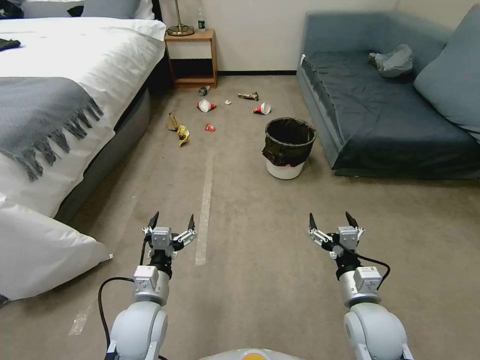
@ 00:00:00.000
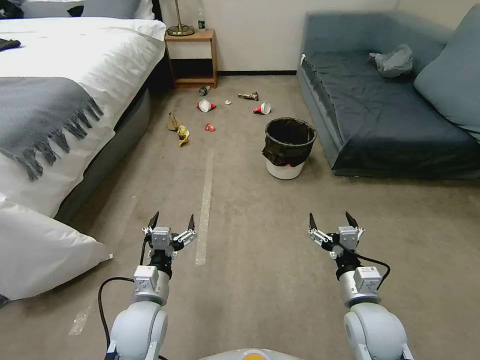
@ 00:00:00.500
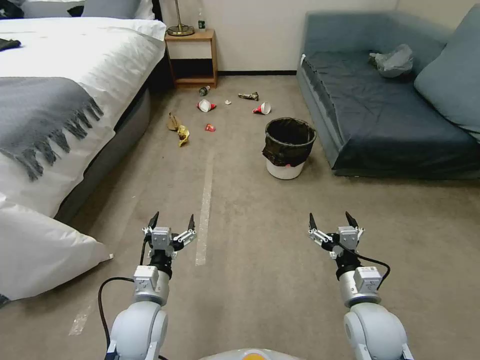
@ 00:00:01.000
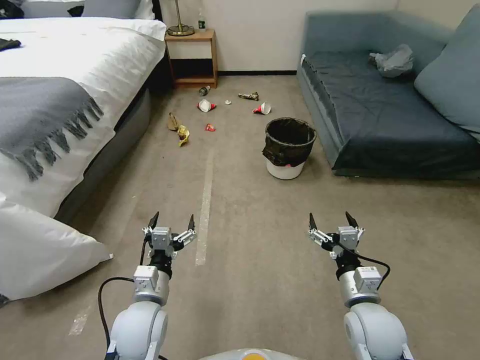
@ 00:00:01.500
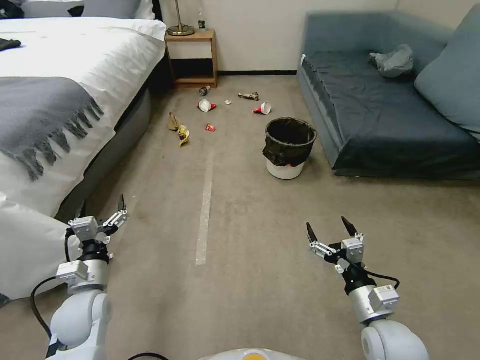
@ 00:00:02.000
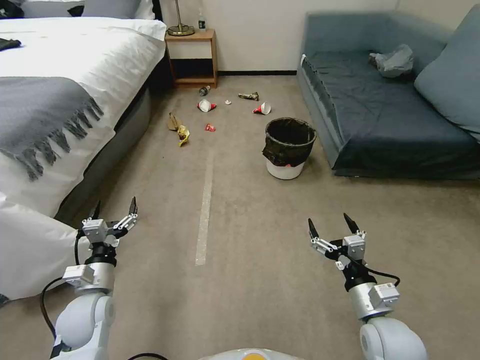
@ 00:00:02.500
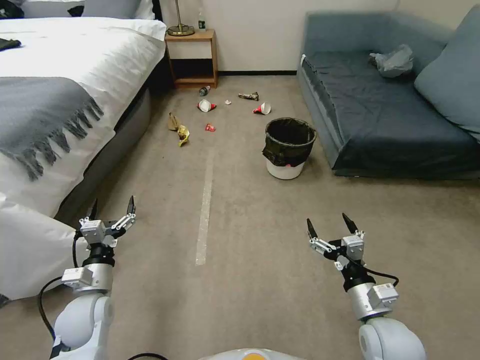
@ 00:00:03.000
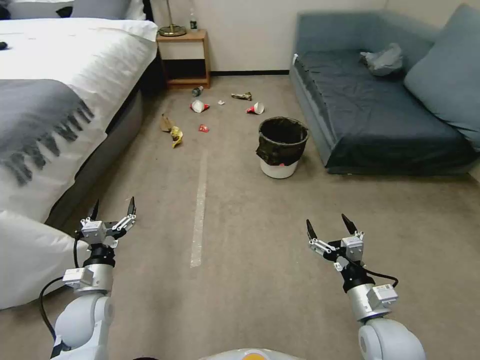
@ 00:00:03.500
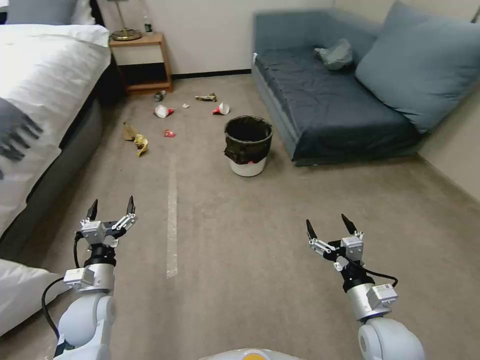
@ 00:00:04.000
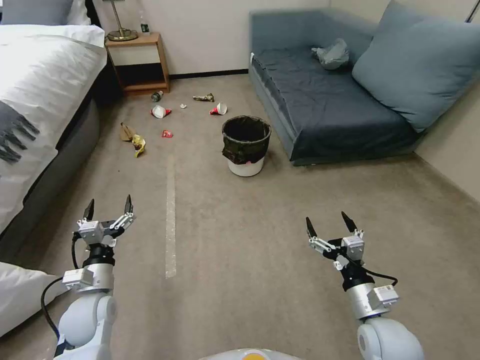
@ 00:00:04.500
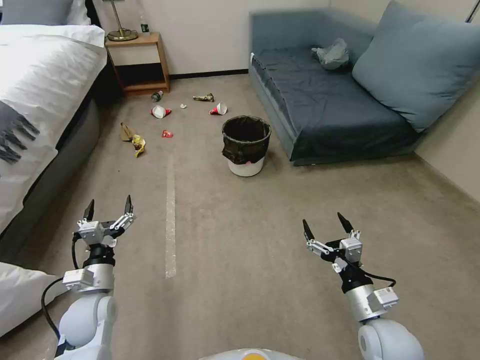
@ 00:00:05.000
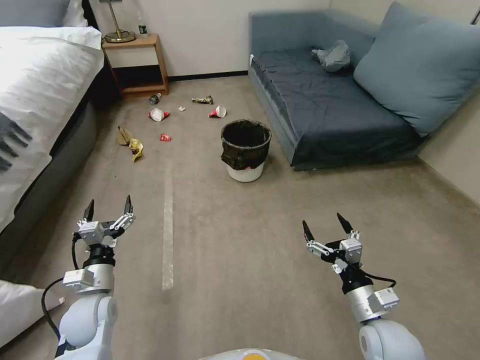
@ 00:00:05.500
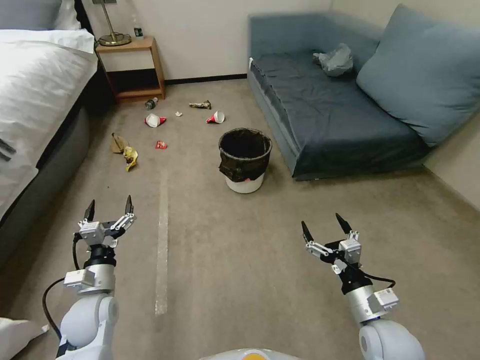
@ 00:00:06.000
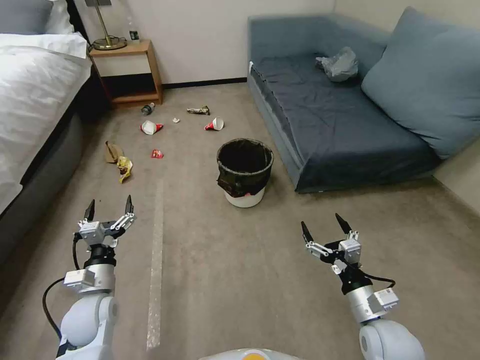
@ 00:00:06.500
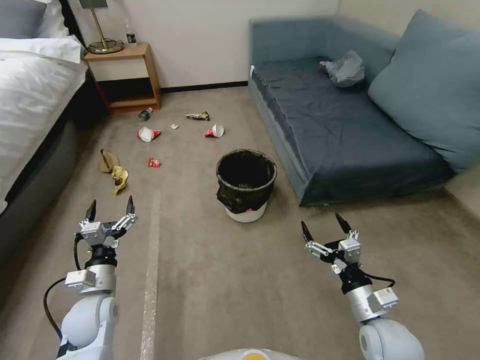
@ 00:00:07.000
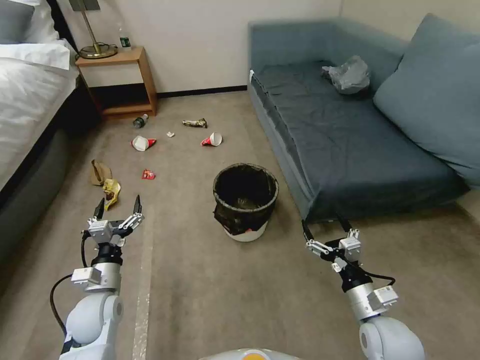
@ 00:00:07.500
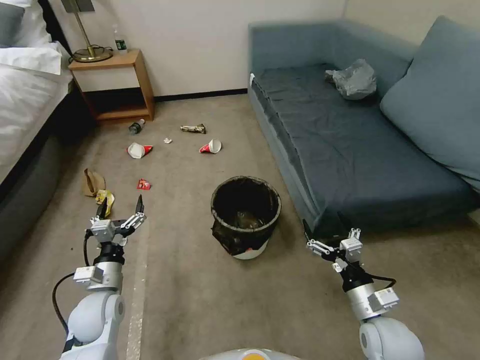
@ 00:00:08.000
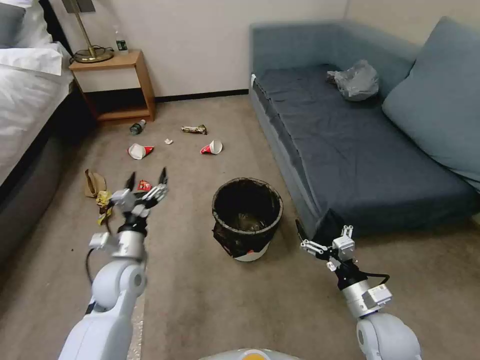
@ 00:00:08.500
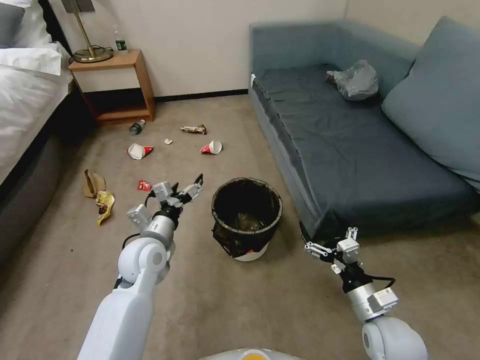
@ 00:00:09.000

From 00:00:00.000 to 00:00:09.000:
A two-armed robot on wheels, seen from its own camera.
Task of the whole recording: Pick up the trash can from the floor.
From 00:00:07.000 to 00:00:09.000: The left gripper heads to the right, forward and upward, covering roughly 15 cm.

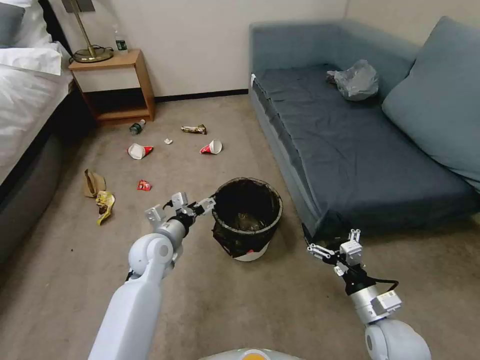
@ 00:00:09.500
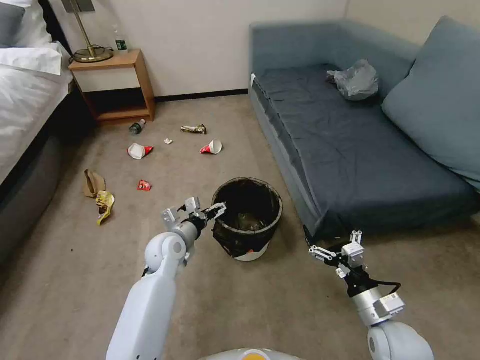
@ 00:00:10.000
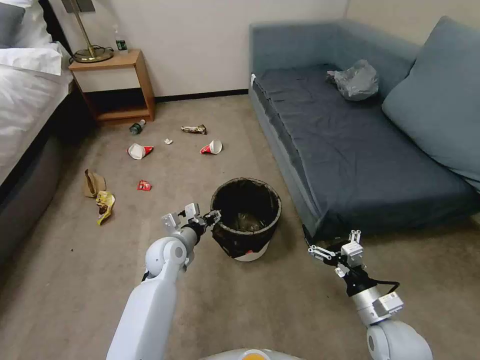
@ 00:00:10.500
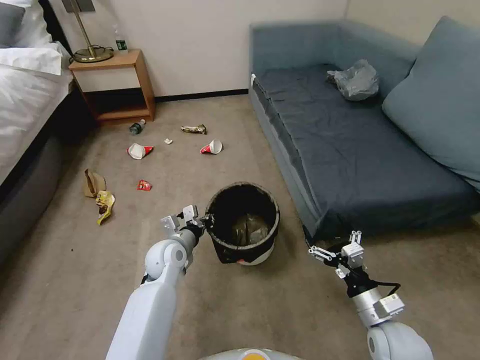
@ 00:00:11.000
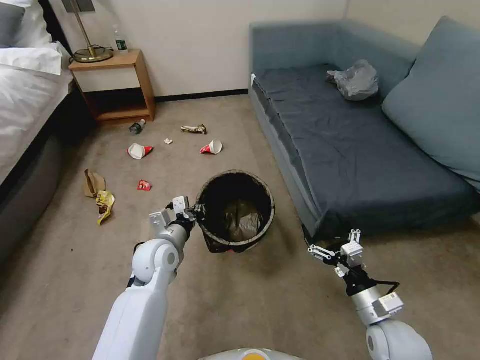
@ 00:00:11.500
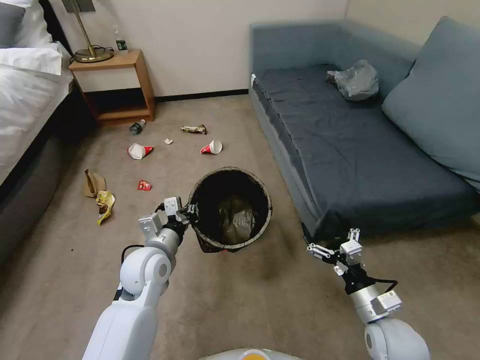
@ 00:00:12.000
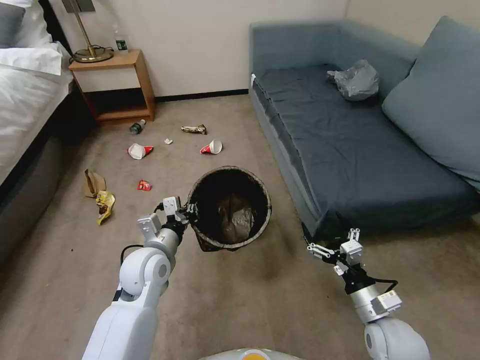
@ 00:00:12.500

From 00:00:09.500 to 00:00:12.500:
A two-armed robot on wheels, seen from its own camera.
Task of the whole recording: Pick up the trash can from the floor.
From 00:00:09.500 to 00:00:11.000: The left gripper closes up.
From 00:00:11.000 to 00:00:12.500: The left gripper is displaced upward and backward by approximately 10 cm.

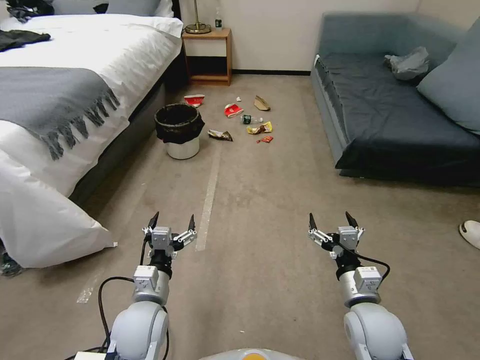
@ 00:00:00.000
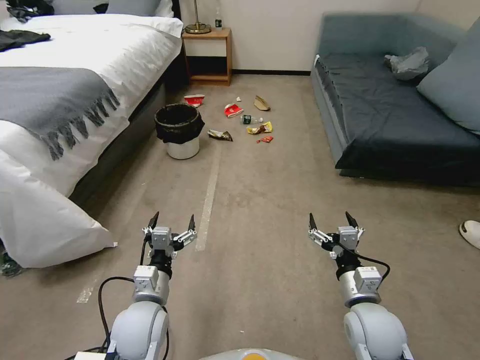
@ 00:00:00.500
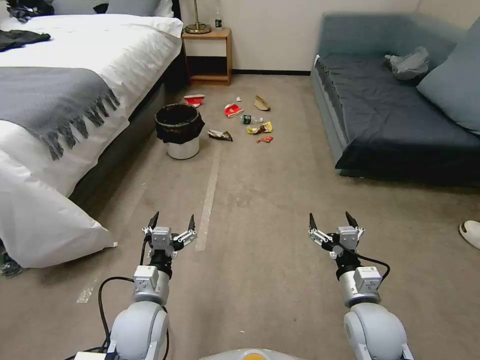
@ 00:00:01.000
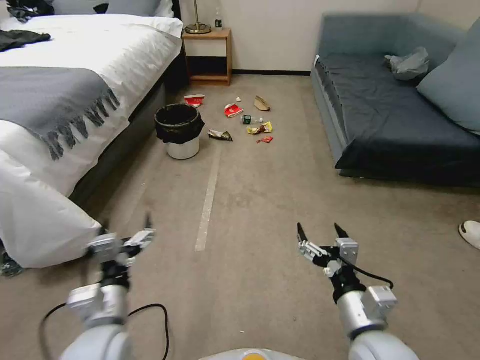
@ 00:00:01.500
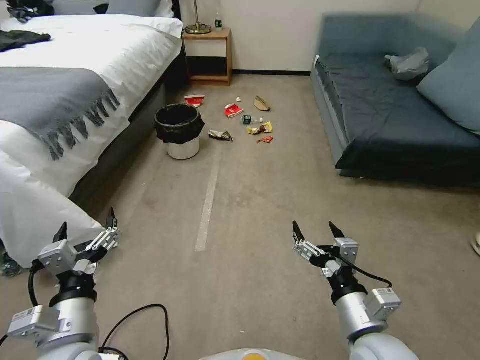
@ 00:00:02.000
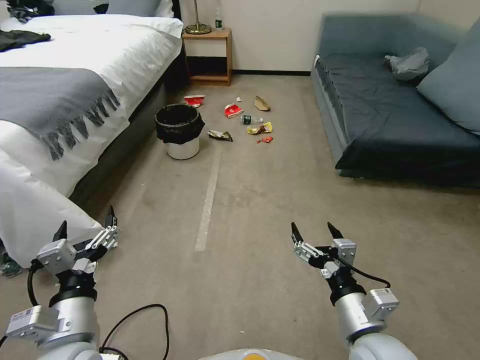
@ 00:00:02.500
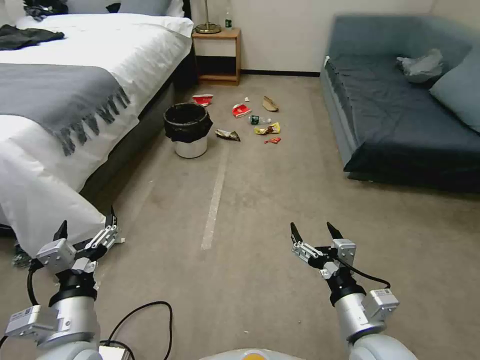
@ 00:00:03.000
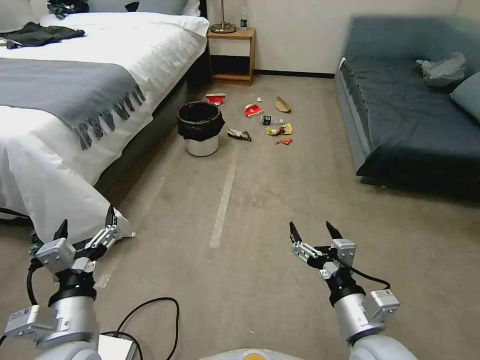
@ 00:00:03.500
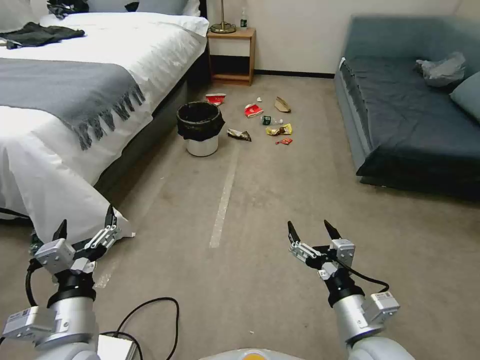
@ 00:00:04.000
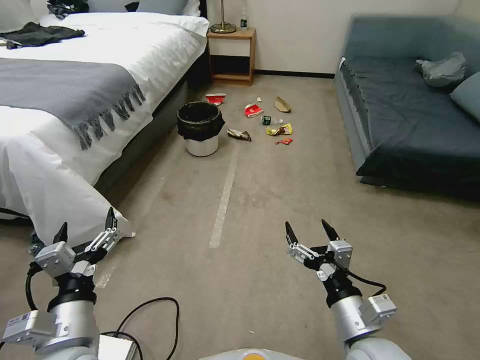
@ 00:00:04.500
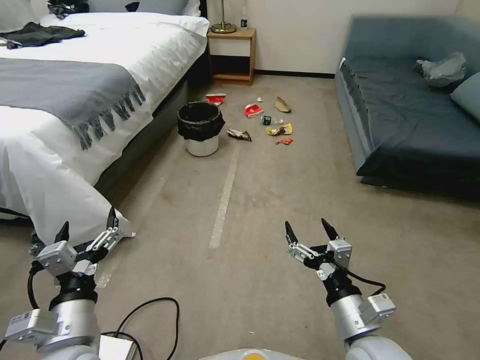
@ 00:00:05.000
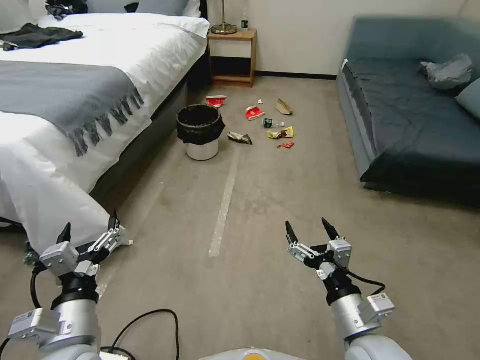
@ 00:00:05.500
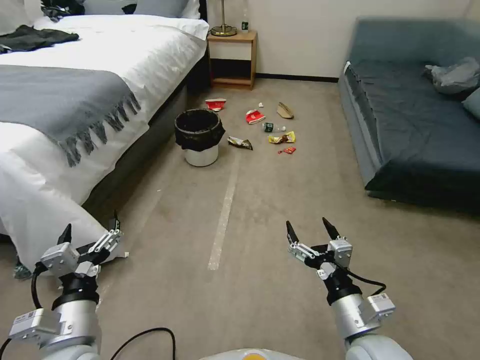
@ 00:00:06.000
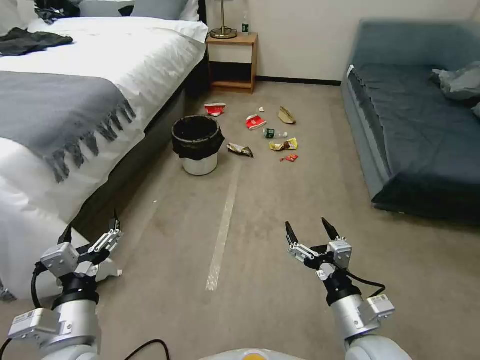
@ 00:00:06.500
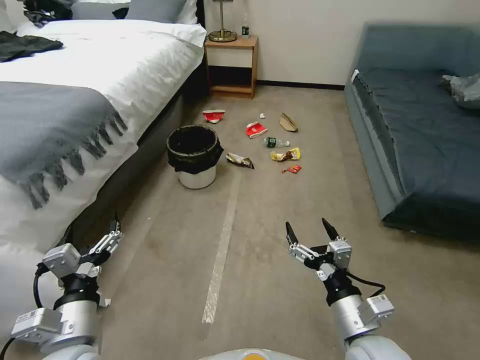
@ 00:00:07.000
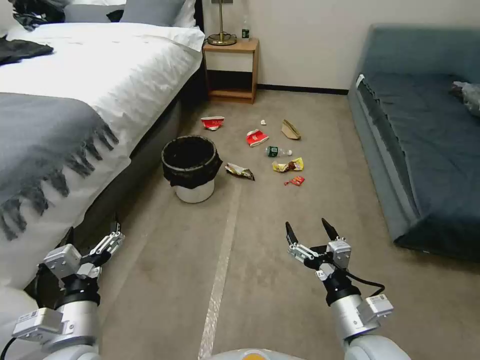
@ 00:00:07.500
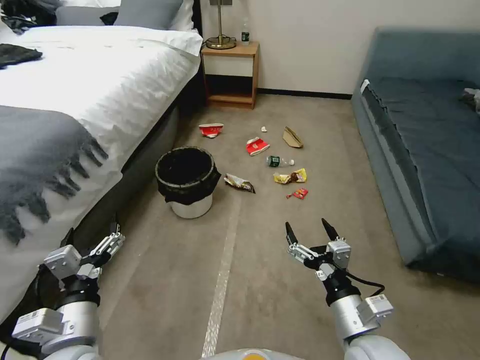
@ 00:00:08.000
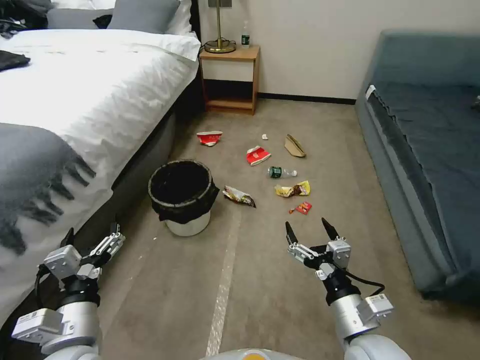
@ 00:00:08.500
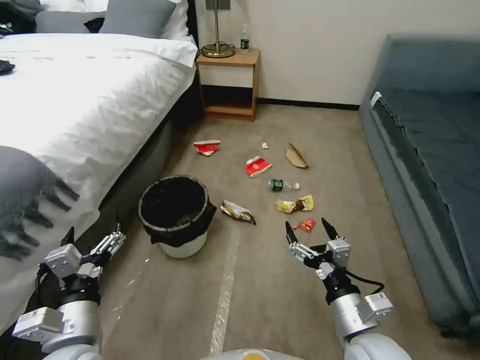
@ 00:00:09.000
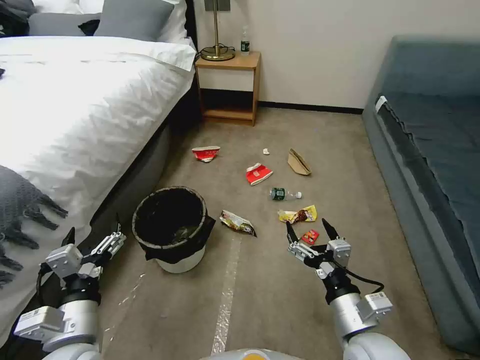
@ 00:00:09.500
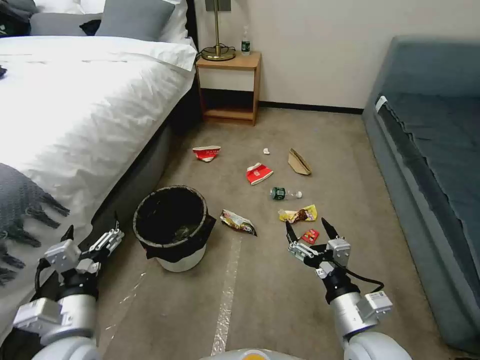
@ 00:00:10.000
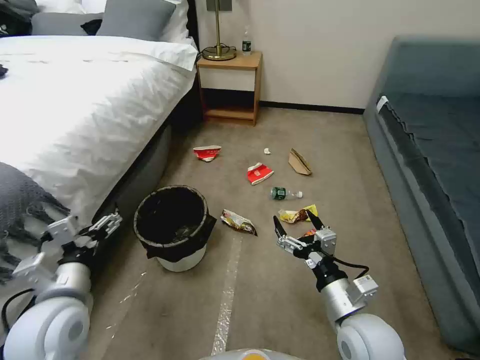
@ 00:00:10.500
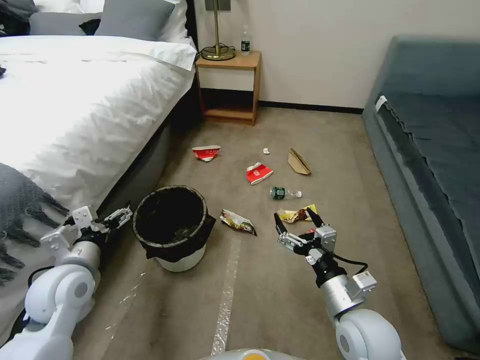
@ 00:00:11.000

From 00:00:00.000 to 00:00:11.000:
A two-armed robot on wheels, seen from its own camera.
Task of the whole recording: Pick up the trash can from the floor.
From 00:00:03.500 to 00:00:05.500: There are only small adjustments of the grippers.
From 00:00:09.000 to 00:00:11.000: The left gripper heads forward and to the left, covering about 15 cm.

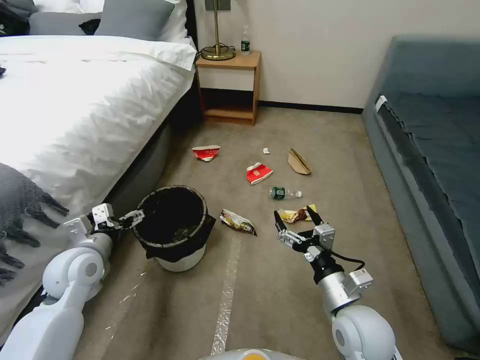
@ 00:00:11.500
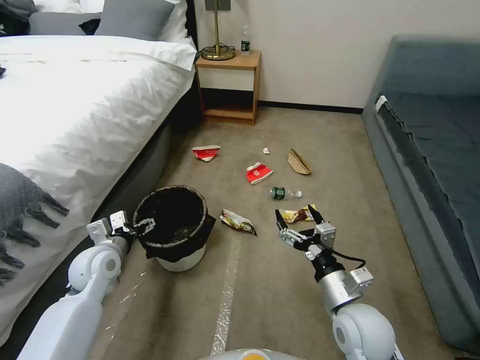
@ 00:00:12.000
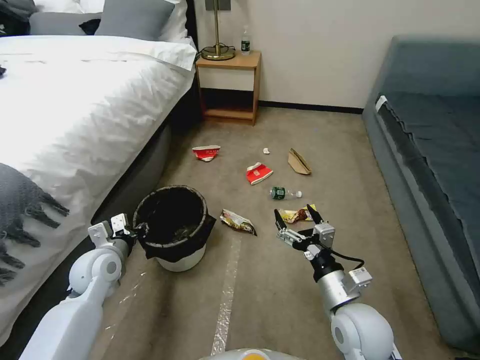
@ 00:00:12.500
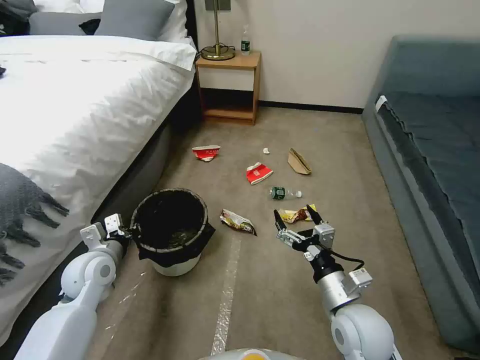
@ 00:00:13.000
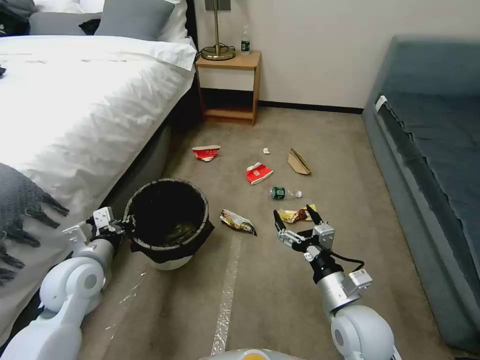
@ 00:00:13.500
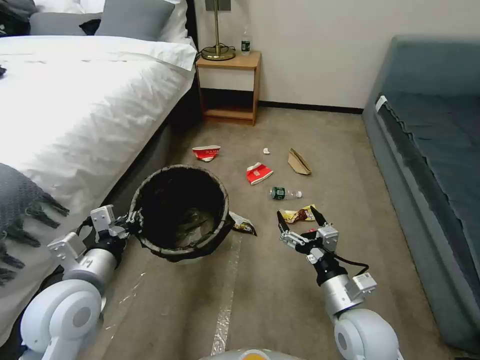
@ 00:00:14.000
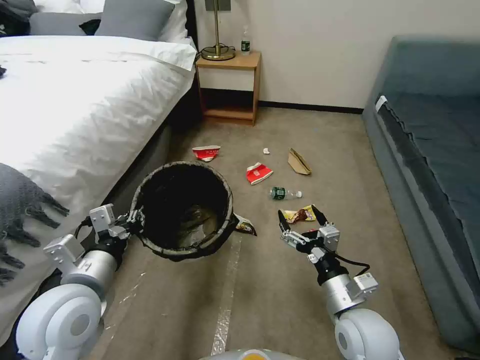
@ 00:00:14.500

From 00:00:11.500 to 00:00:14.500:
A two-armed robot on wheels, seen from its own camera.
Task of the whole recording: Pick up the trash can from the floor.
From 00:00:11.500 to 00:00:13.000: The left gripper closes.
From 00:00:13.000 to 00:00:14.500: The left gripper goes about 15 cm upward, backward and to the right.
